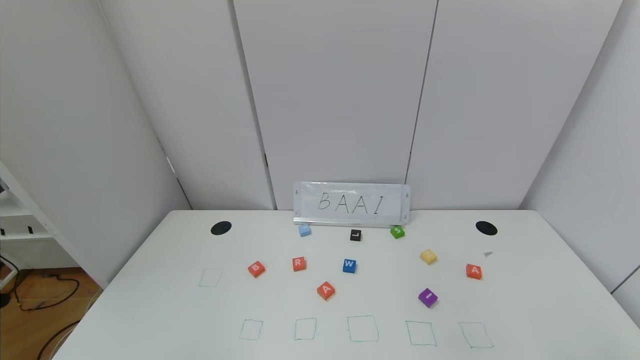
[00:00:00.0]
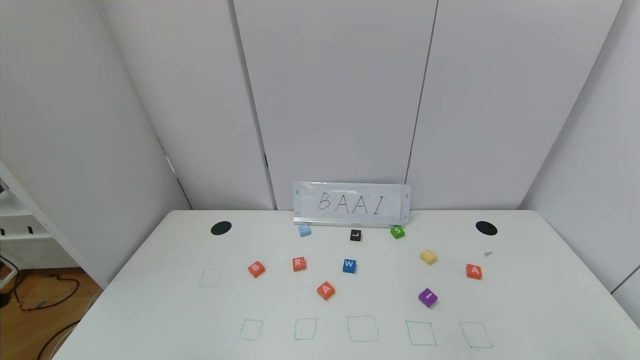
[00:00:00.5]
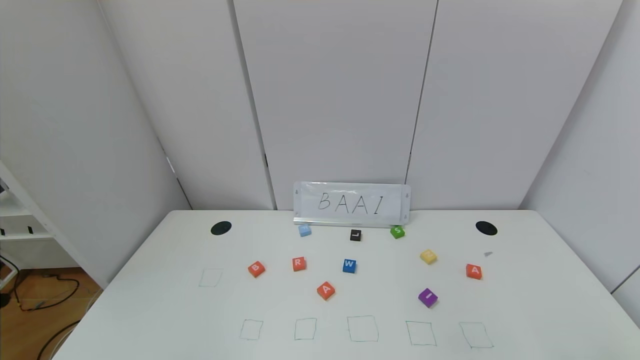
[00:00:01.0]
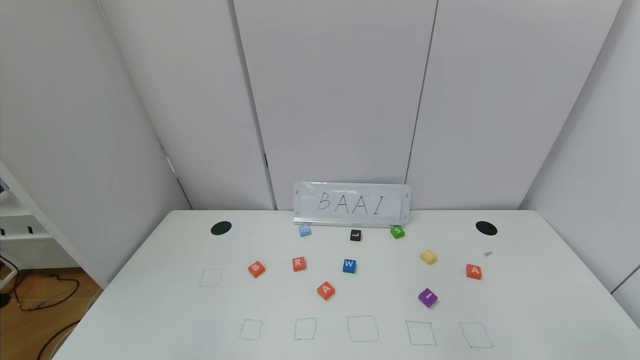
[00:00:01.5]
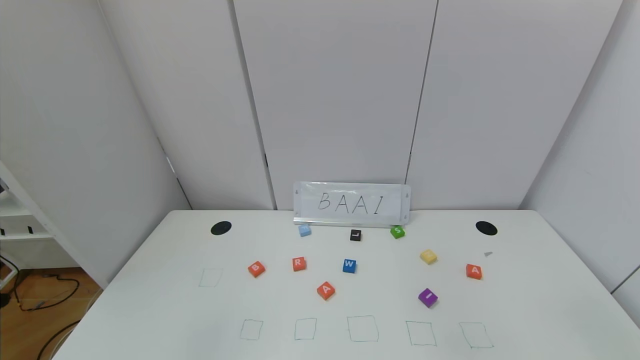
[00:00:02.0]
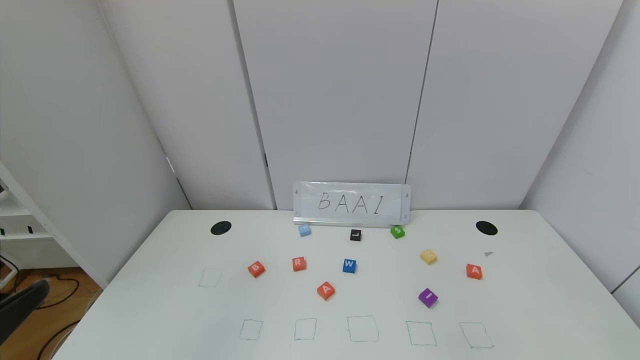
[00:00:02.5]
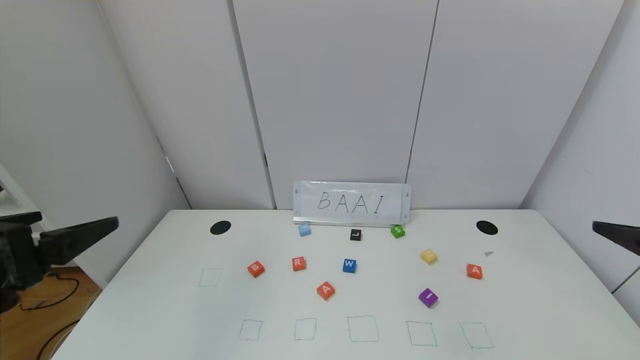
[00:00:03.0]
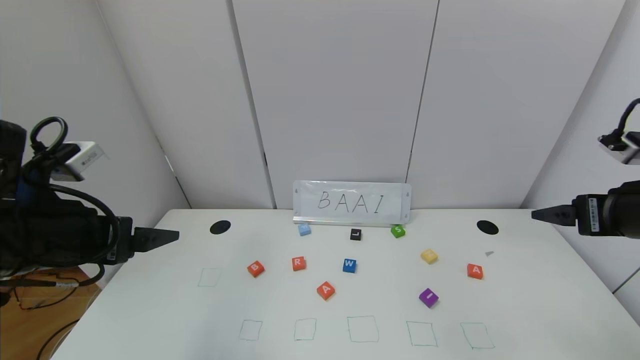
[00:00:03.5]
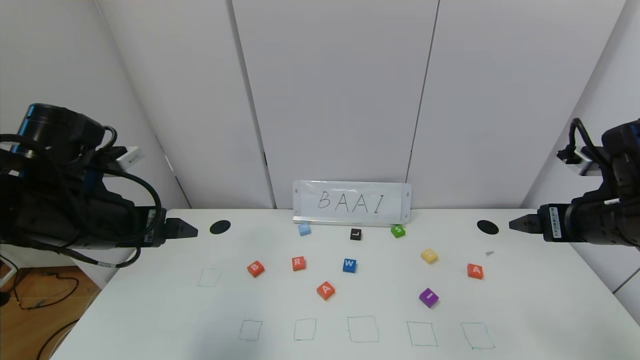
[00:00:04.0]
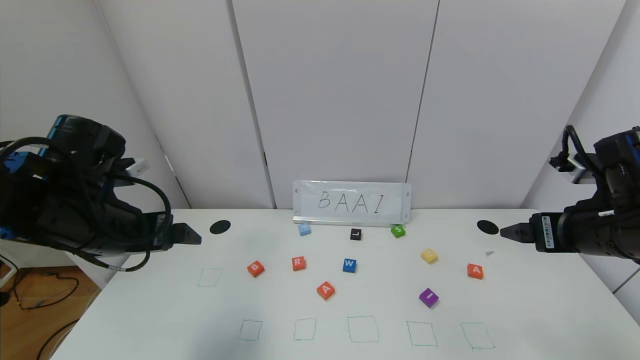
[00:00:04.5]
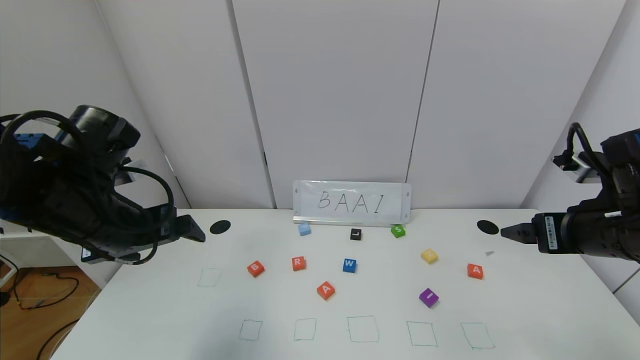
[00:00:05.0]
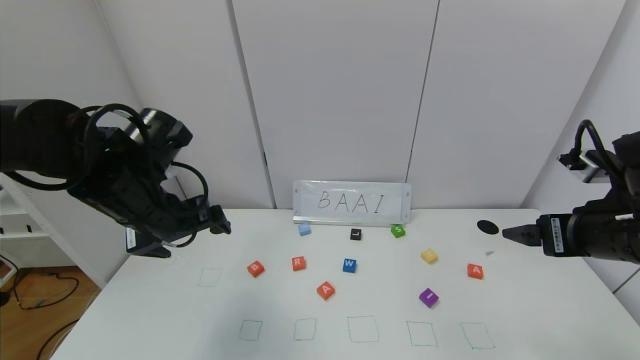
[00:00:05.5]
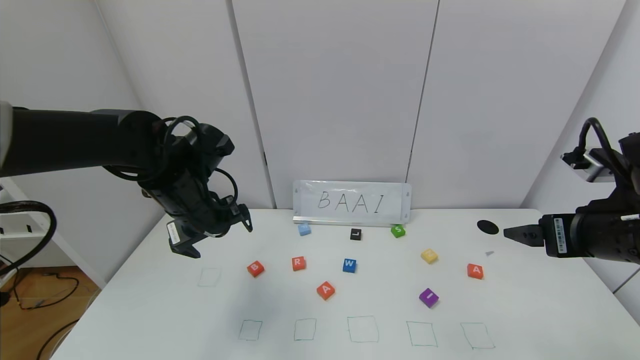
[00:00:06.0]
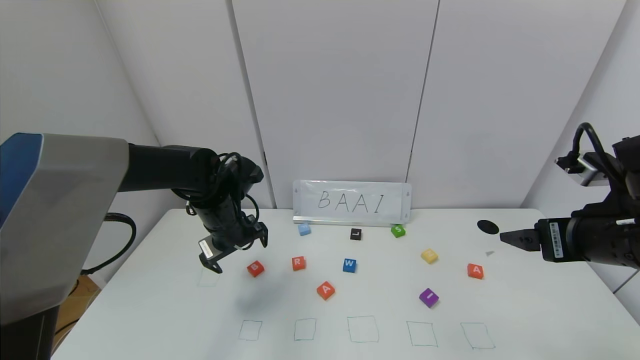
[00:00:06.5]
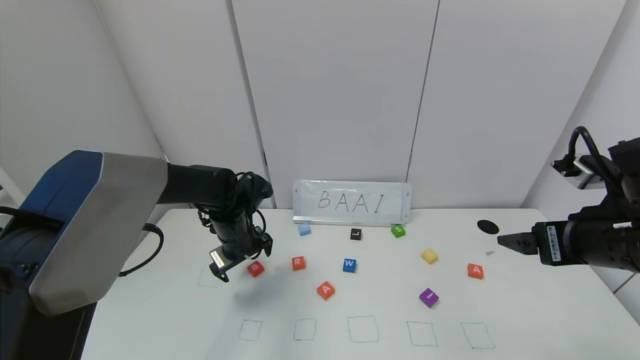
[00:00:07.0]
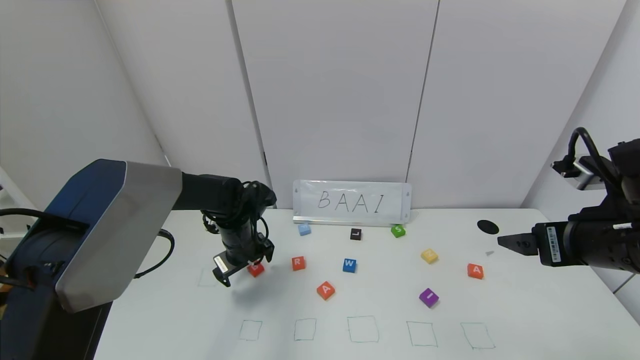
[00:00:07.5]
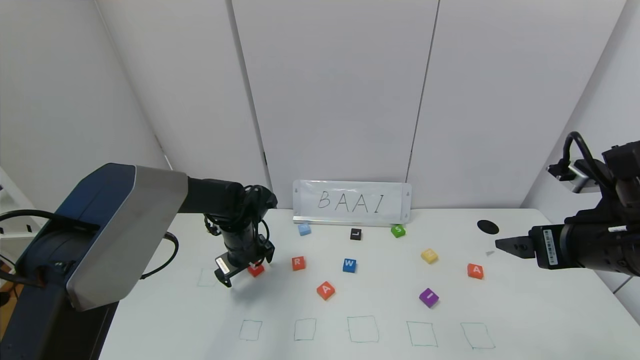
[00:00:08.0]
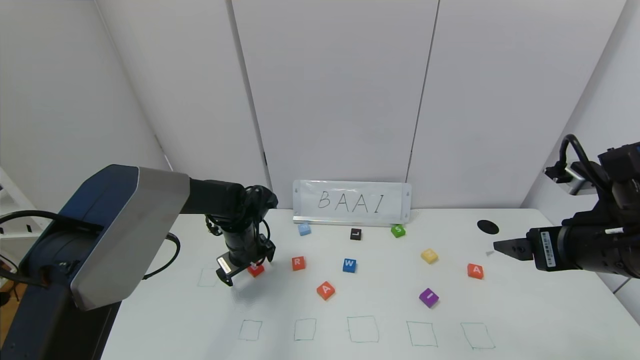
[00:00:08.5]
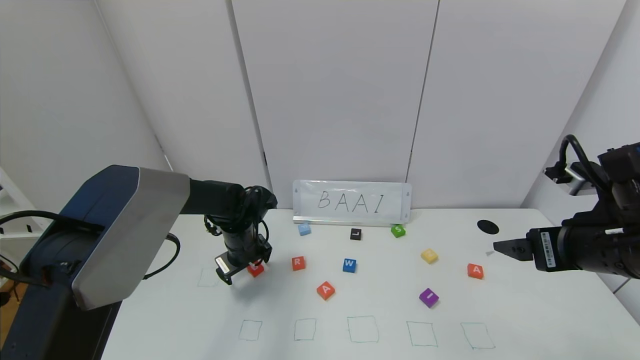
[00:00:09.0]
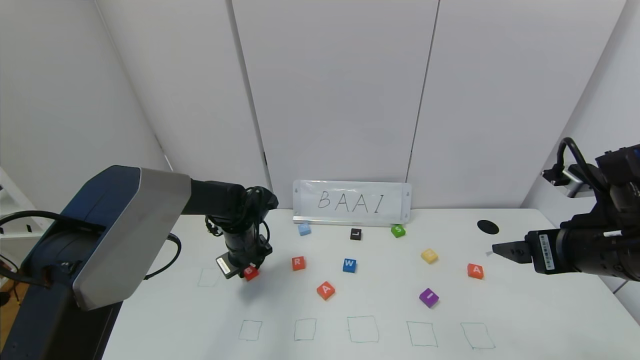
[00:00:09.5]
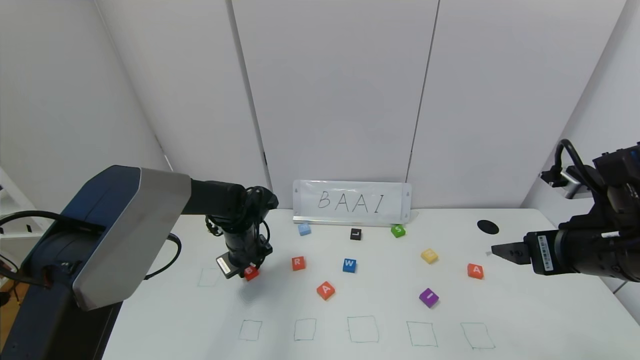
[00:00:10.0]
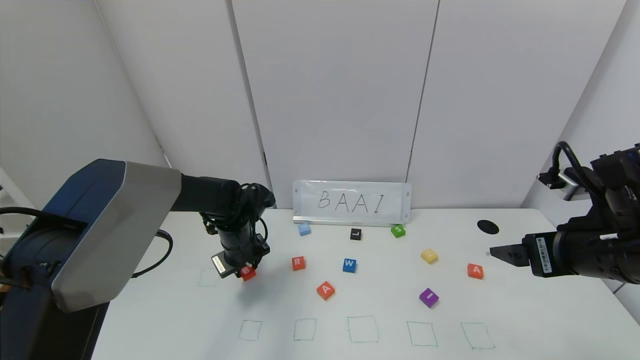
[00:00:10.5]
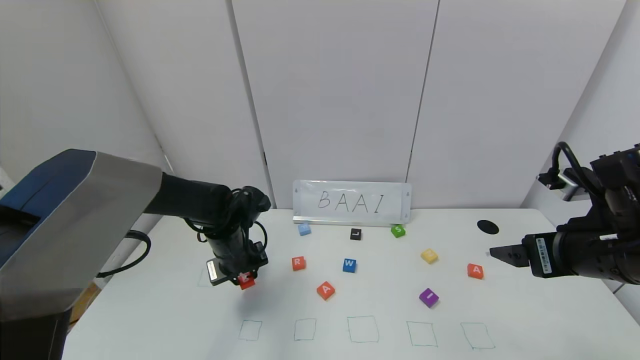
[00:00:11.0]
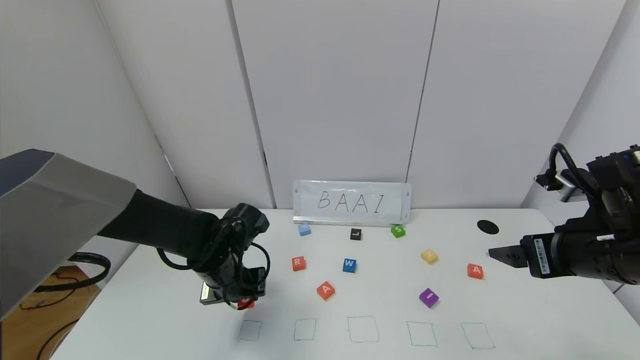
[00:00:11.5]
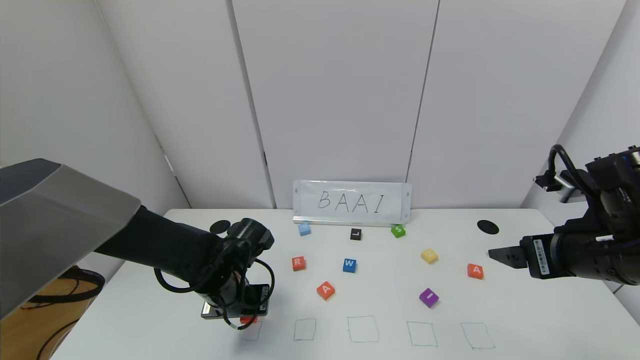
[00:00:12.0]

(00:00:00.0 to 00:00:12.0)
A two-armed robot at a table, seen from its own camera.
Task of the whole recording: use the gripper to find blocks with the letters b, a, a, and i on the table and arrange them into BAAI, then find r and N and turn the arranged baai into brian.
00:00:02.0 - 00:00:04.0: Both grippers move forward, roughly 25 cm.
00:00:04.0 - 00:00:06.0: The left gripper travels forward and to the right by about 10 cm.
00:00:06.0 - 00:00:08.0: The left gripper shifts some 15 cm downward and forward.
00:00:08.0 - 00:00:10.0: The left gripper closes.
00:00:10.0 - 00:00:12.0: The left gripper shifts about 10 cm backward.

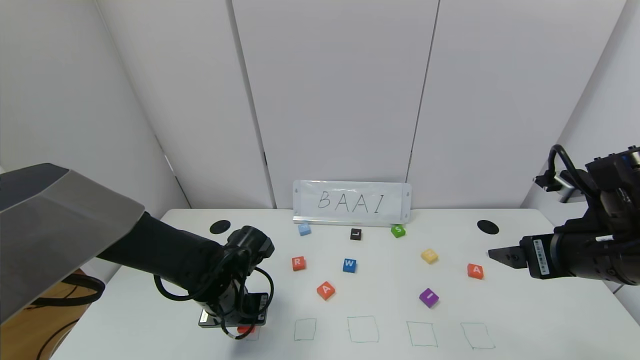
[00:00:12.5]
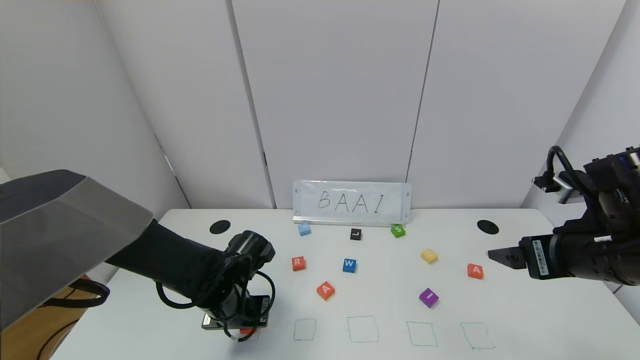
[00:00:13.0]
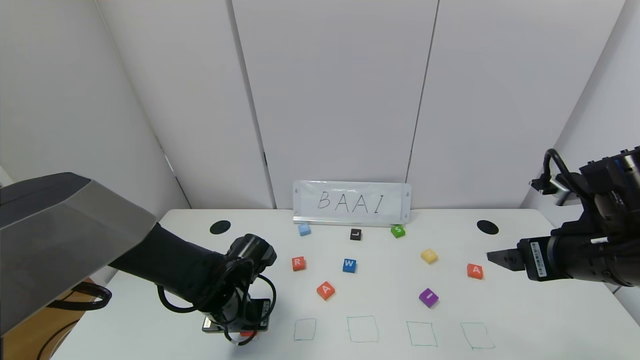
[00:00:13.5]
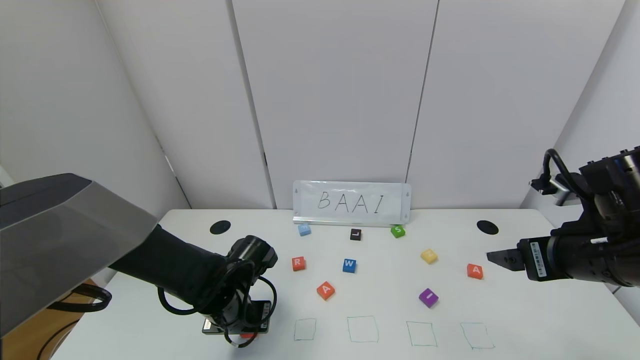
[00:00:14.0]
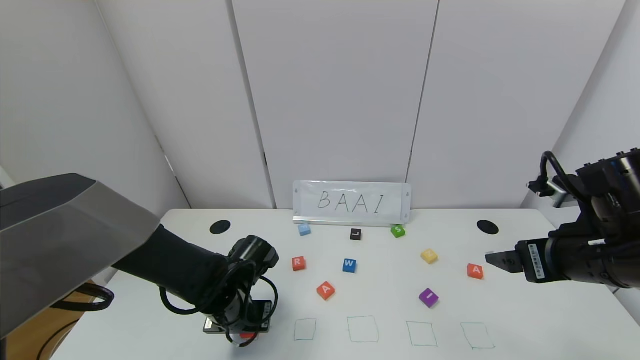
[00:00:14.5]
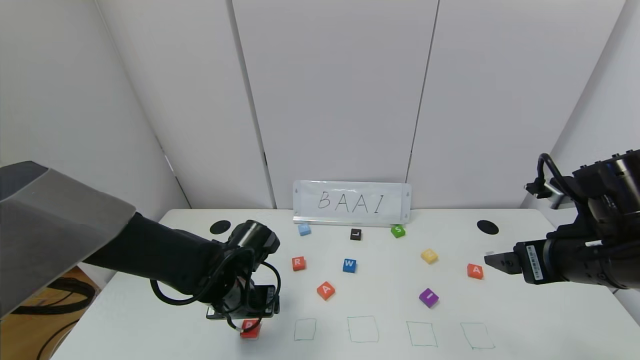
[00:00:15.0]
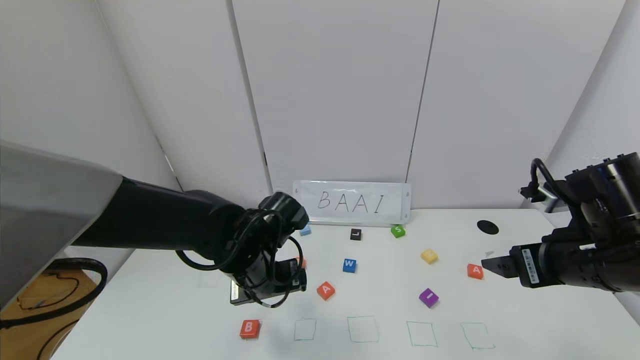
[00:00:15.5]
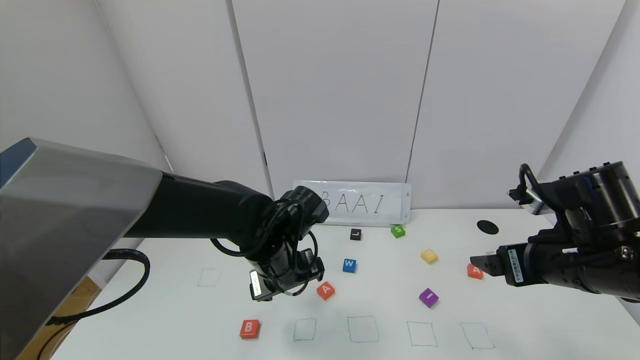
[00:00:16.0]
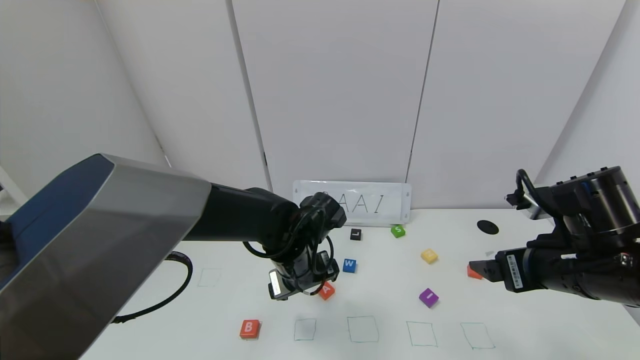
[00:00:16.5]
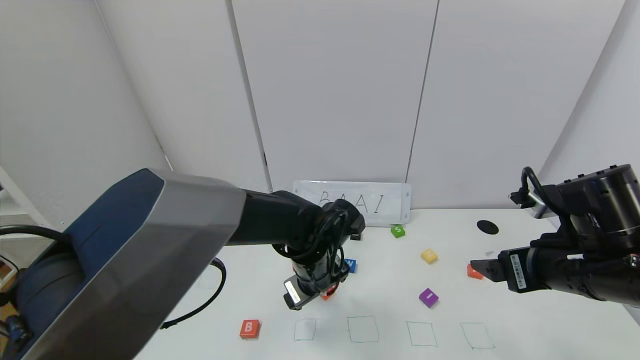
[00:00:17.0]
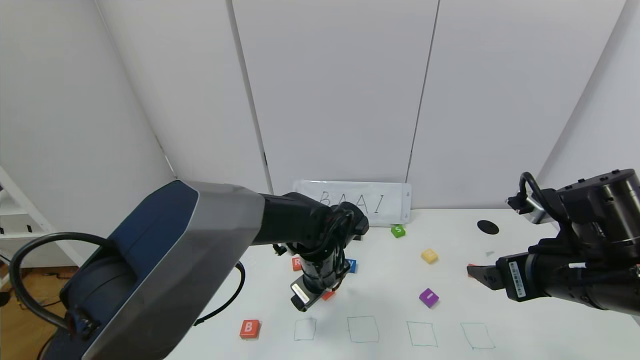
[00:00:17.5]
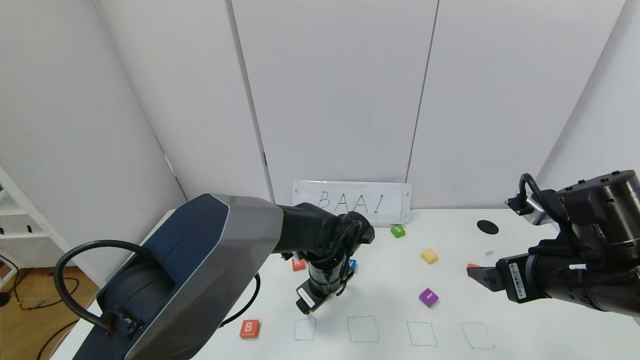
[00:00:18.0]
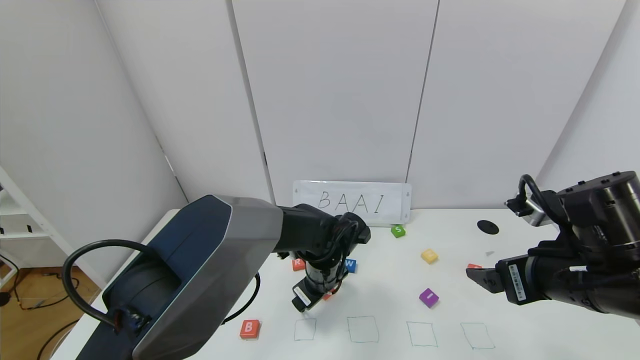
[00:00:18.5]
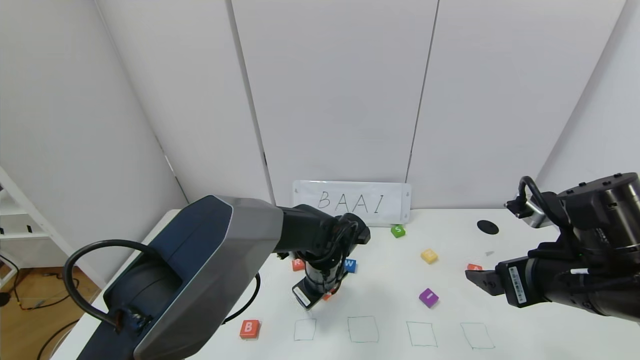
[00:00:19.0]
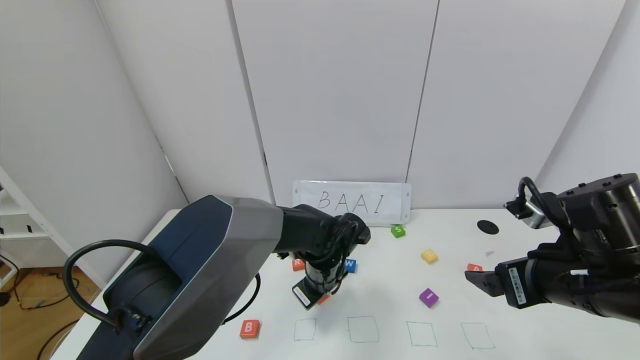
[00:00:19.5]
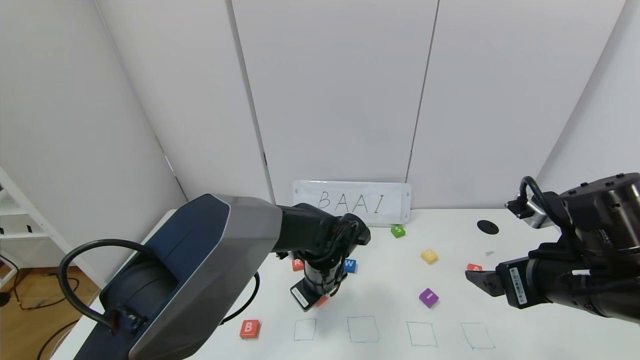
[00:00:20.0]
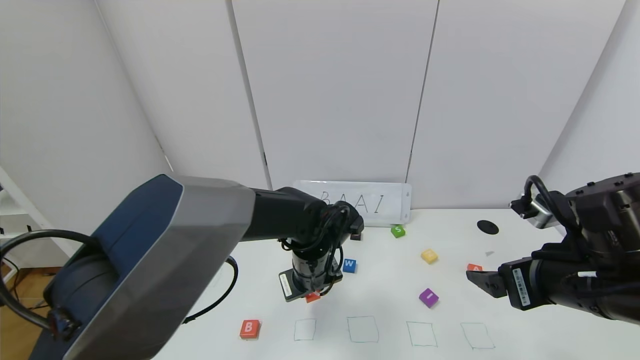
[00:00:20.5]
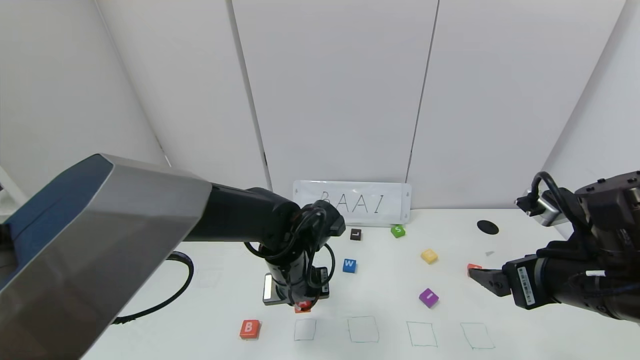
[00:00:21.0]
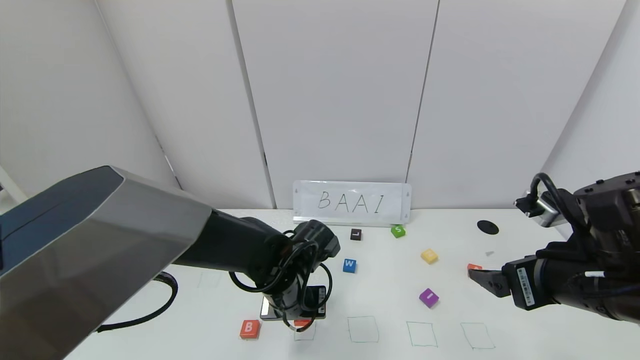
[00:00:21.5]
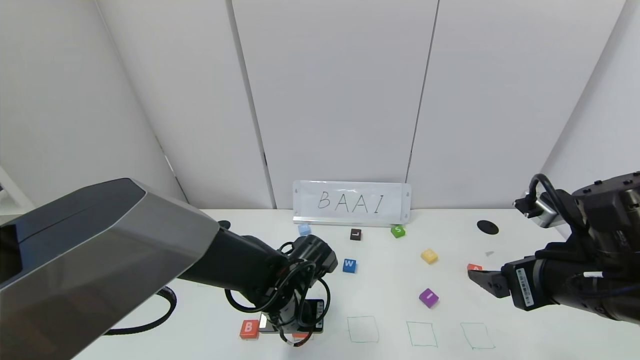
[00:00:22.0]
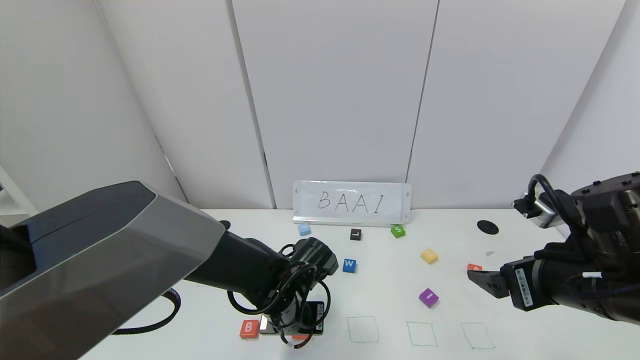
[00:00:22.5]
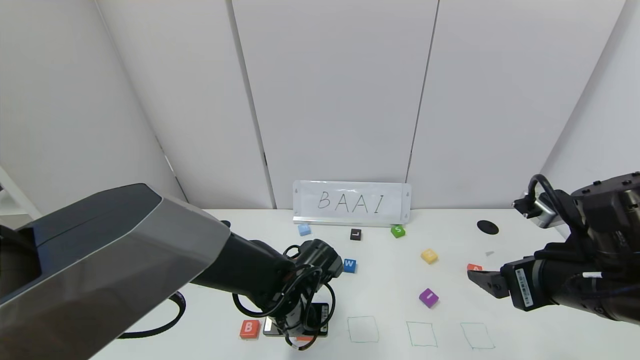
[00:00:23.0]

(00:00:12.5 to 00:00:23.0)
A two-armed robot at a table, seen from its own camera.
Task of the whole recording: use the gripper to find blocks with the letters b, a, a, and i on the table and arrange them into BAAI, then find r and N and turn the arranged baai into brian.
Step, 00:00:12.5 - 00:00:14.5: Place the block B in the first location.
00:00:12.5 - 00:00:14.5: The left gripper opens.
00:00:14.5 - 00:00:16.5: The left gripper goes approximately 10 cm to the right and upward, and opens.
00:00:16.5 - 00:00:19.0: The left gripper is displaced downward by roughly 5 cm, and closes up.
00:00:19.0 - 00:00:21.0: The left gripper heads upward, covering roughly 5 cm, and closes up.
00:00:21.0 - 00:00:23.0: The left gripper travels downward by some 5 cm.
